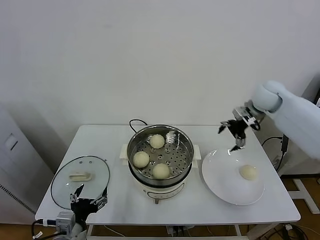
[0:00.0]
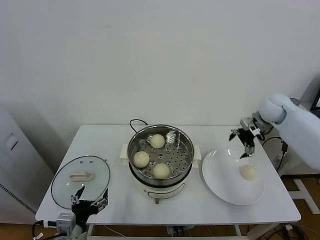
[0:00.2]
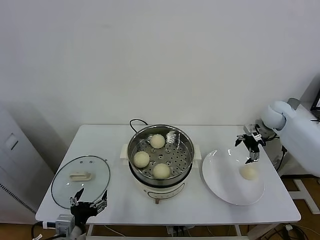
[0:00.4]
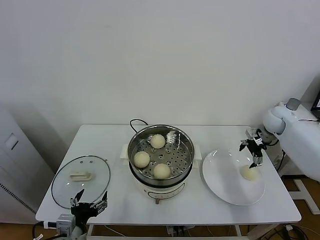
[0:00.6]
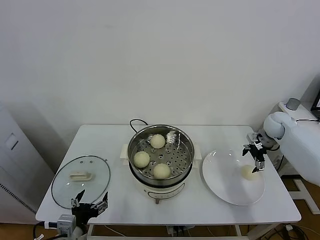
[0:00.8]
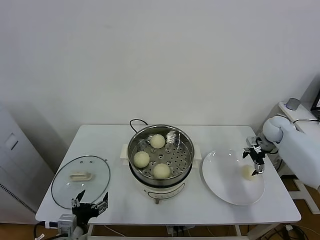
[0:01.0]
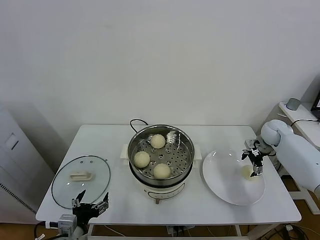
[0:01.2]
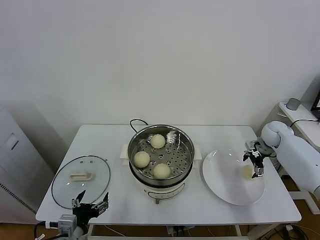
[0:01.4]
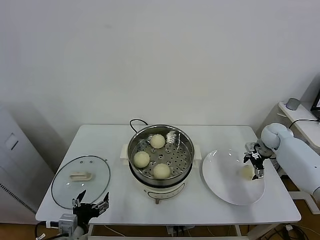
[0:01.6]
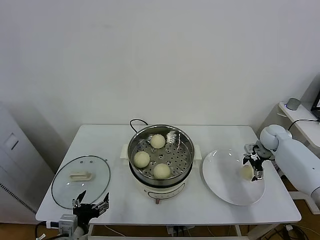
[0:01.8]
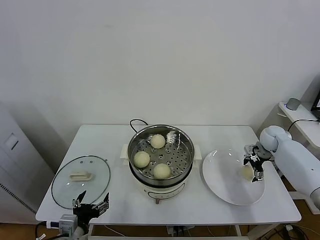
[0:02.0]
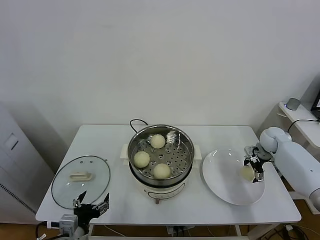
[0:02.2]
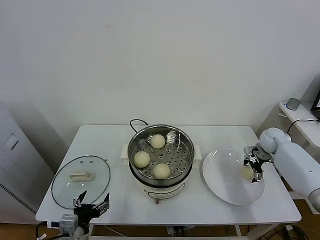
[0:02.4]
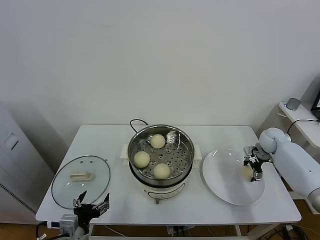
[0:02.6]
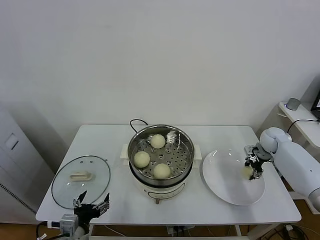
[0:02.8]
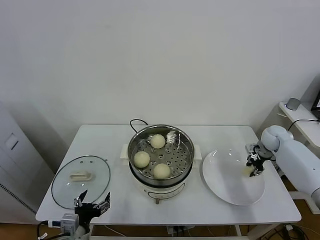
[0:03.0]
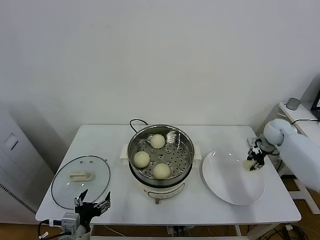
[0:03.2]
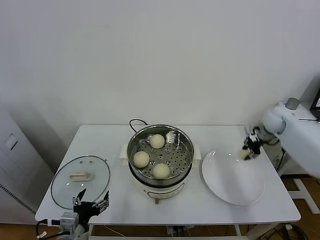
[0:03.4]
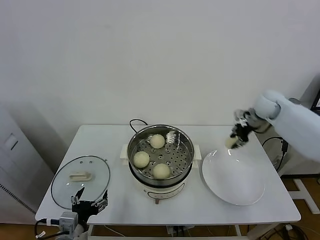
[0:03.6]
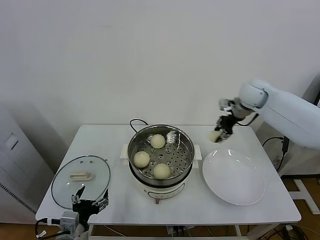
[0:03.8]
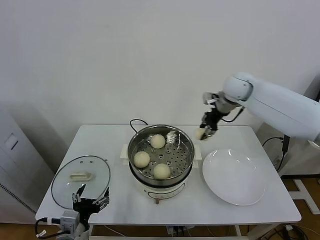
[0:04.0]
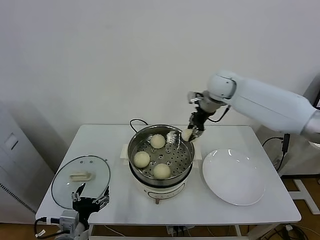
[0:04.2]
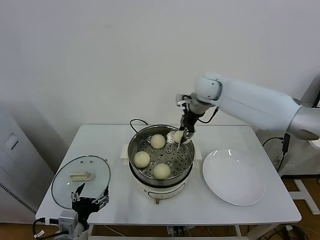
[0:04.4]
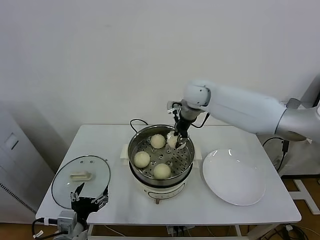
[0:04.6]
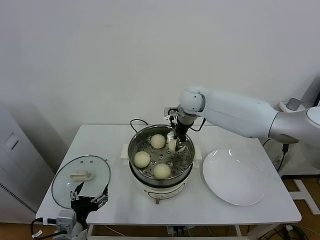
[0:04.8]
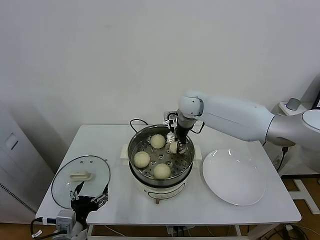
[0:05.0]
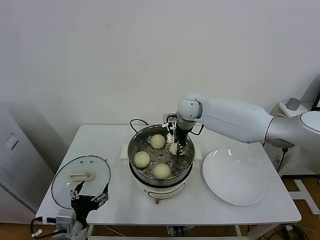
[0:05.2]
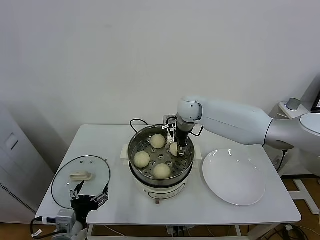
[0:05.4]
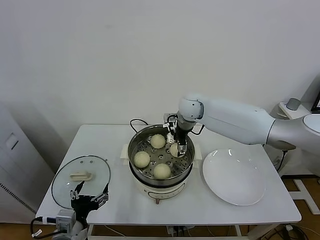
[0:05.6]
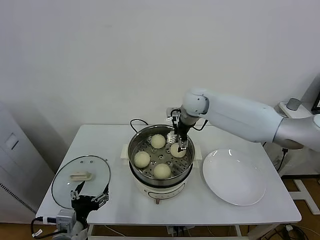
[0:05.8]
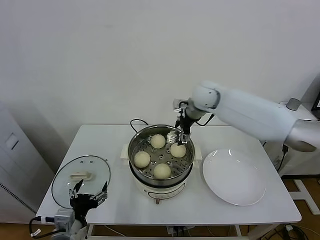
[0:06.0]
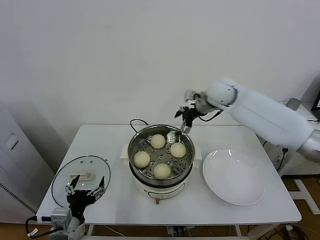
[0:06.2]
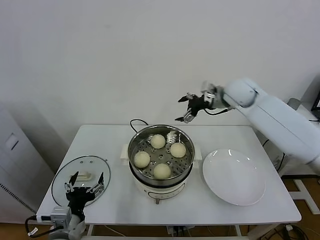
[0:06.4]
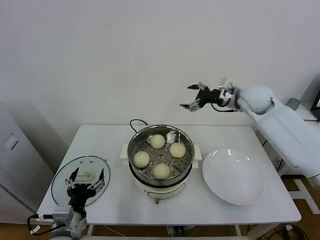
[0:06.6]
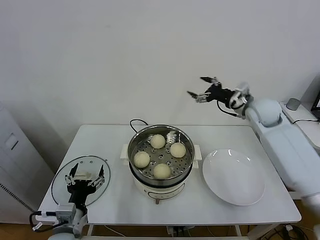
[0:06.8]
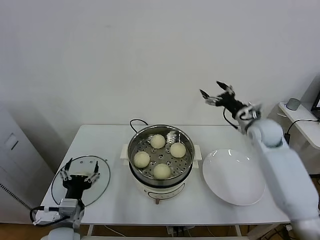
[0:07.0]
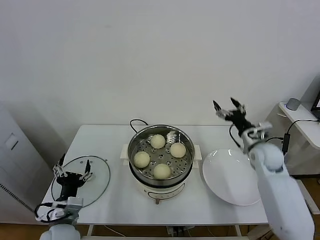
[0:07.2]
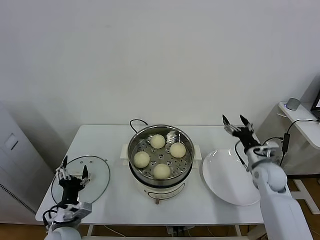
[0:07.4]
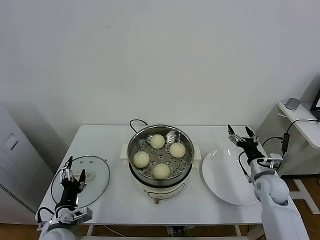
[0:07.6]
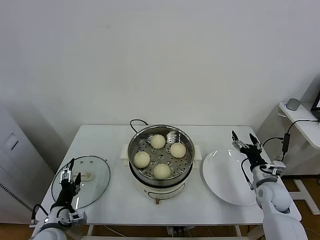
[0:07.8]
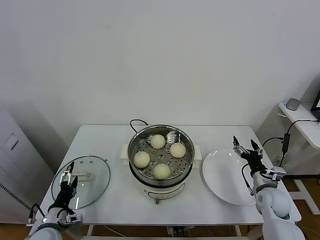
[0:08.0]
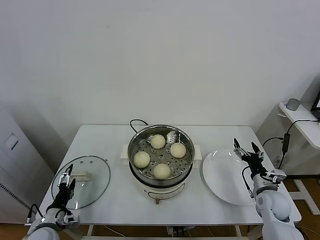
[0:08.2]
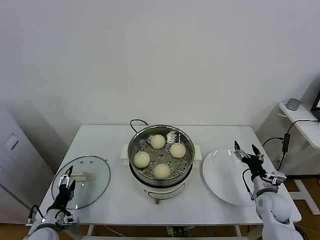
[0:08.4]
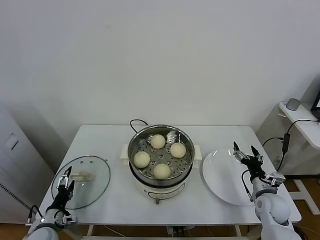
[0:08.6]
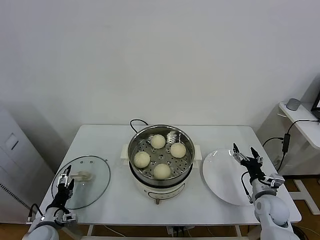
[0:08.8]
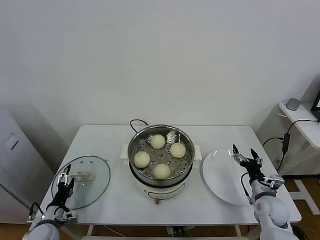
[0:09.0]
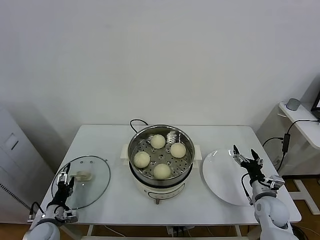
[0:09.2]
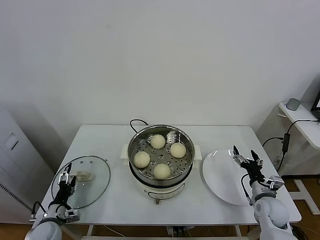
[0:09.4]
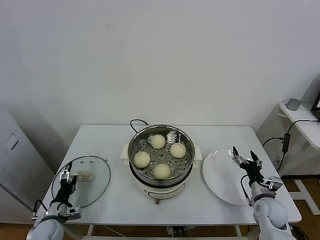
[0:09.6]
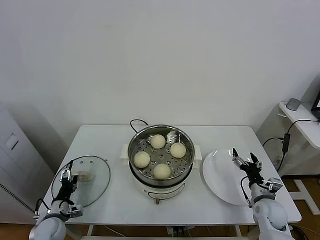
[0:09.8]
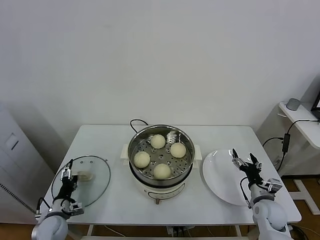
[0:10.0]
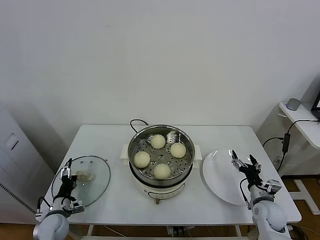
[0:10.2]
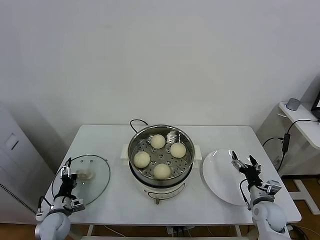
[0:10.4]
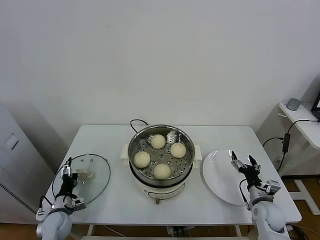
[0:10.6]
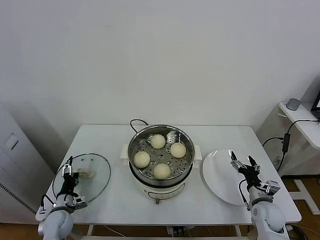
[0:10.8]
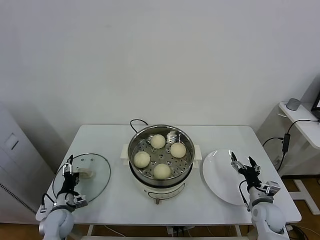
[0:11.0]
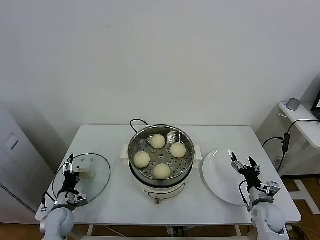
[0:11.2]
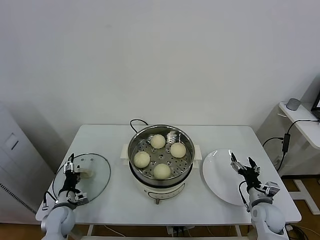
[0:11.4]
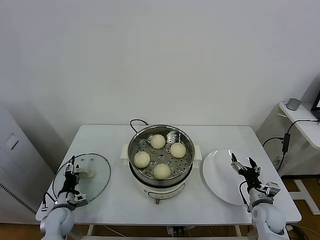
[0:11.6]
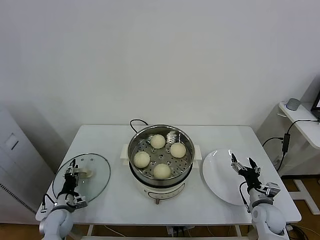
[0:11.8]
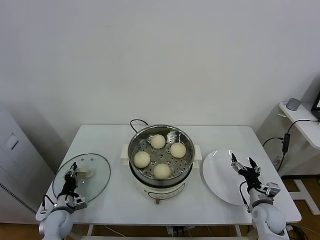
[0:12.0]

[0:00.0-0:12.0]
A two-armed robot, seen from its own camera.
Task of the whole recording: take steamed baozi put them in steamer.
Step, 0:00.0 to 0:02.8: Grasp the baozi in the plate with right gripper.
Step, 0:03.2 to 0:05.8: Place the baozi on the steamer with right gripper.
0:00.0 to 0:01.6: The right gripper shifts approximately 20 cm downward and to the right.
0:01.6 to 0:03.0: The right gripper closes up.
0:03.0 to 0:04.4: The right gripper is displaced to the left and upward by approximately 35 cm.
0:04.4 to 0:06.0: The right gripper opens up.
0:06.0 to 0:07.6: The left gripper moves downward and forward, approximately 10 cm, while the right gripper moves downward, to the right and backward, some 40 cm.
0:07.6 to 0:09.0: The left gripper moves to the left and downward, some 15 cm. The right gripper heads backward and downward, covering approximately 10 cm.
0:09.0 to 0:10.4: The grippers make only small movements.
0:10.4 to 0:12.0: The left gripper closes.

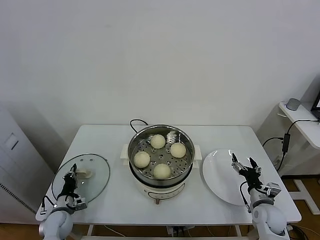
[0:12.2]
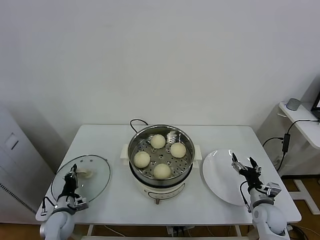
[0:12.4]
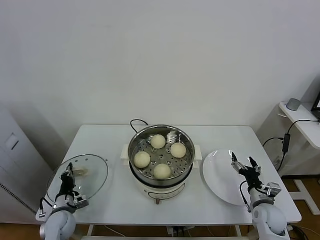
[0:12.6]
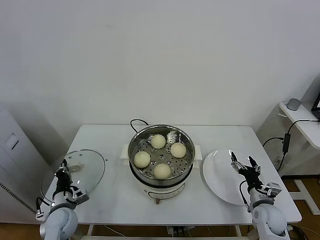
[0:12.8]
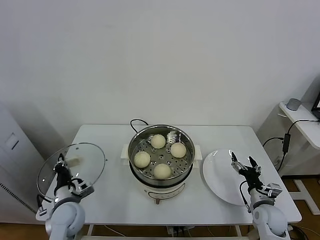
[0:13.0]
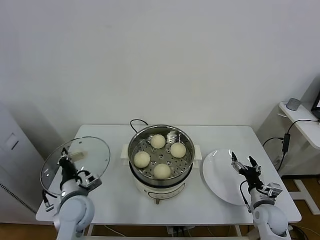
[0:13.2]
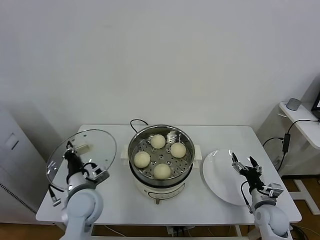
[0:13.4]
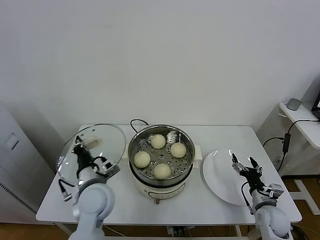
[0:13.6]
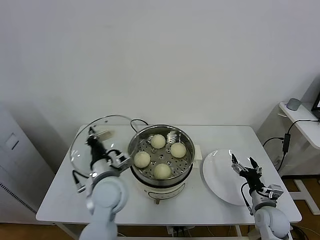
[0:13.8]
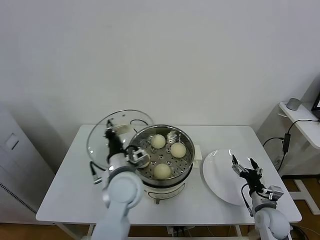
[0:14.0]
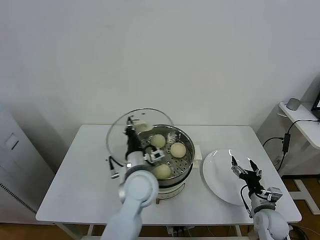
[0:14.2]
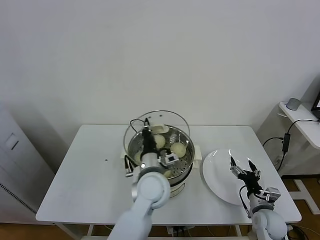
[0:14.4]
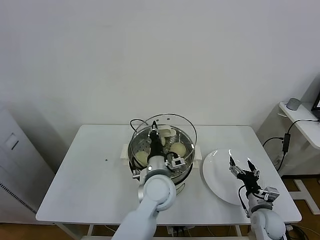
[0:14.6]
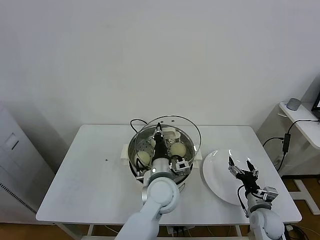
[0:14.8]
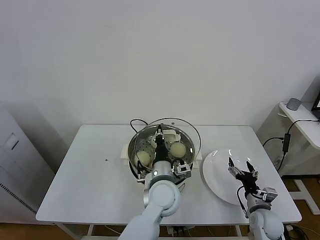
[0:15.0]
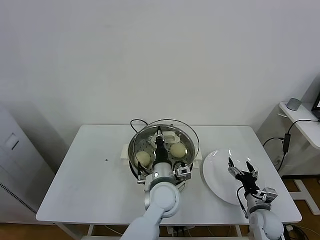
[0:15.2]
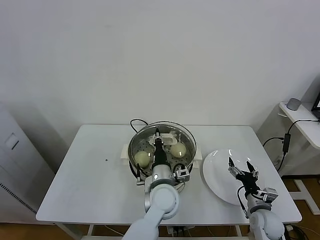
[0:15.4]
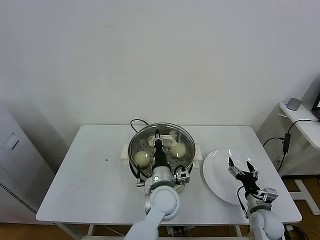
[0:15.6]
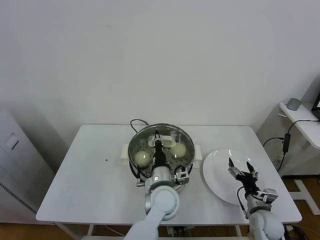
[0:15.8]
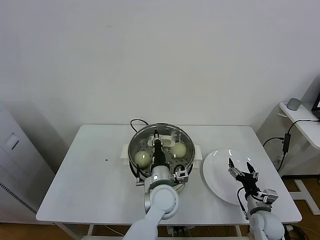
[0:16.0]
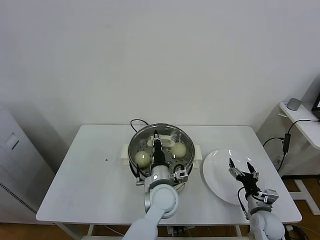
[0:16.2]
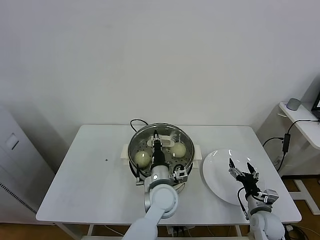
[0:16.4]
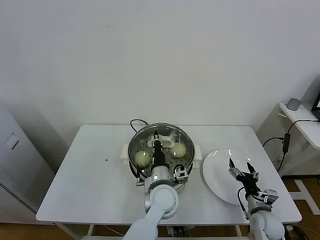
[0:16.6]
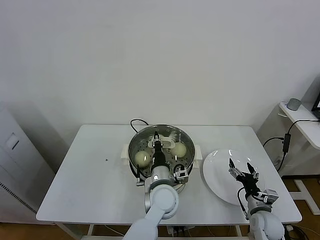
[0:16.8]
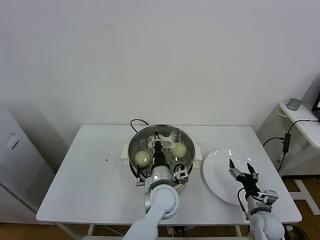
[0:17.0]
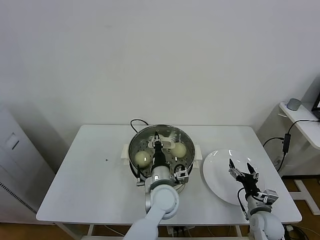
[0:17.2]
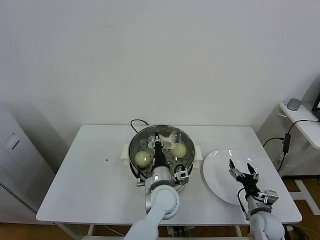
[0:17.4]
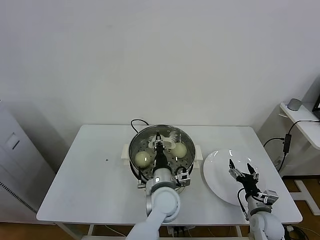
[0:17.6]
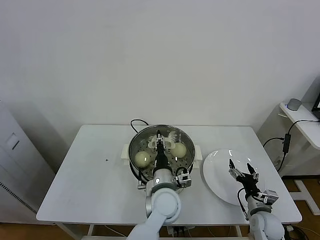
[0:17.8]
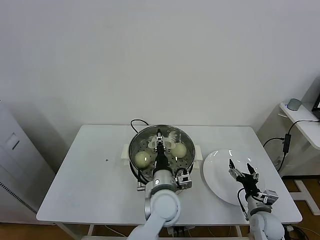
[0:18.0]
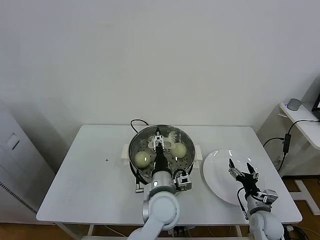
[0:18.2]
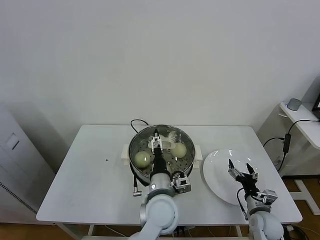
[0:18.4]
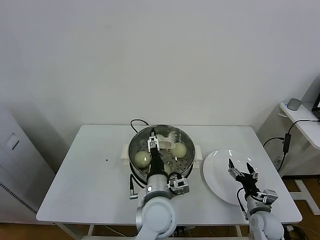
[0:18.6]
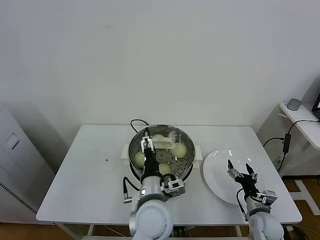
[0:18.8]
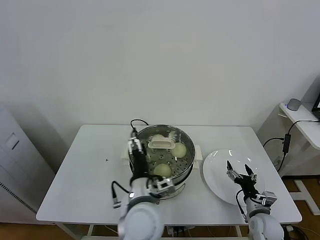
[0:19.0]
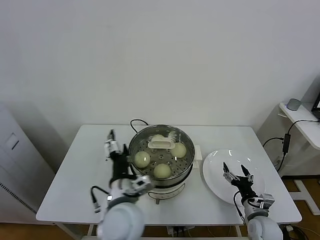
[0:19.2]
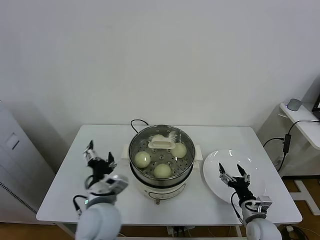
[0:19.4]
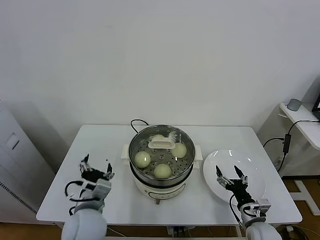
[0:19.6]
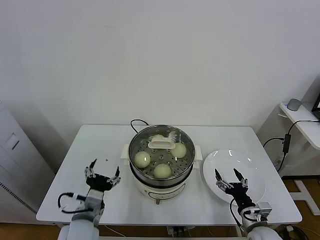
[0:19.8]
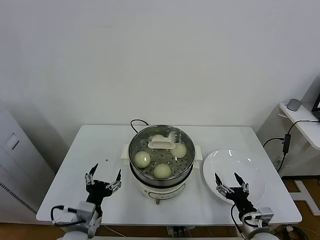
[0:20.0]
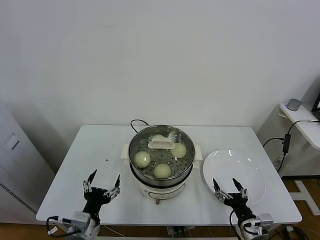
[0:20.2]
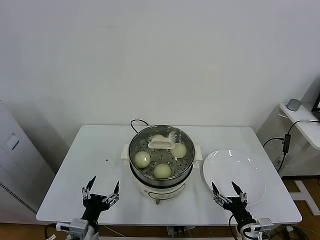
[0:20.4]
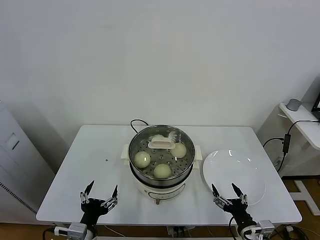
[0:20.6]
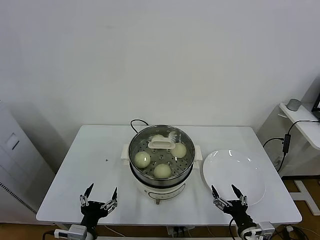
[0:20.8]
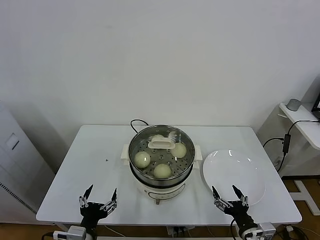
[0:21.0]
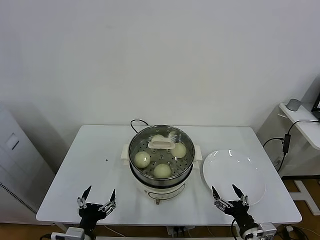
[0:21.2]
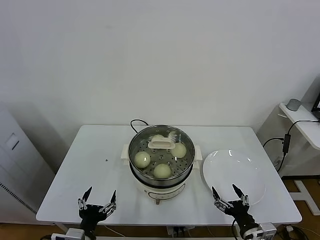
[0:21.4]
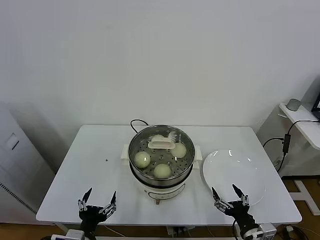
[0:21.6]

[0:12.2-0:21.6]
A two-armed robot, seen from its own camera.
Task of the whole recording: take steamed baozi put them in steamer.
Step, 0:12.4 to 0:17.8: Place the pot lid on the steamer with left gripper.
0:12.2 to 0:13.8: The left gripper is displaced upward and to the right by roughly 35 cm.
0:13.8 to 0:15.4: The left gripper travels to the right by roughly 15 cm.
0:15.4 to 0:17.0: There are only small adjustments of the grippers.
0:17.0 to 0:18.4: The left gripper changes place by roughly 5 cm, and opens.
0:18.4 to 0:20.0: The right gripper heads backward, covering approximately 5 cm; the left gripper moves to the left, roughly 25 cm.
0:20.0 to 0:21.6: Both grippers move backward, approximately 5 cm.
